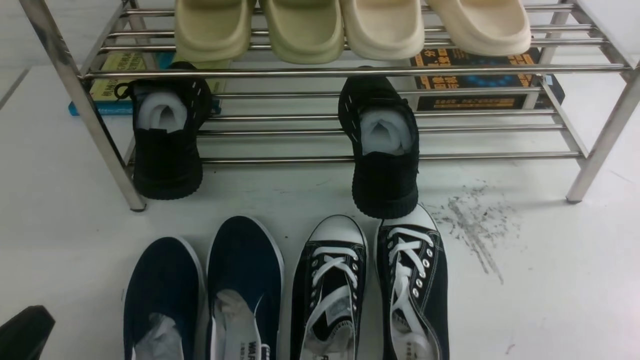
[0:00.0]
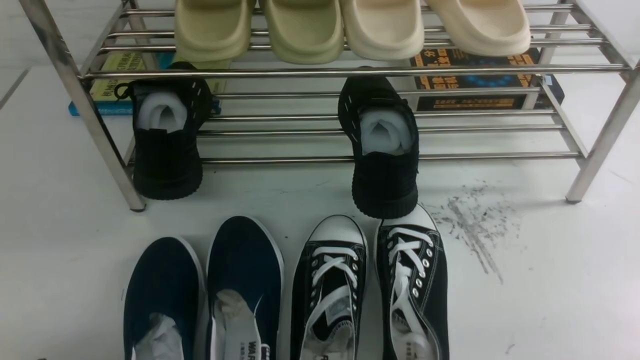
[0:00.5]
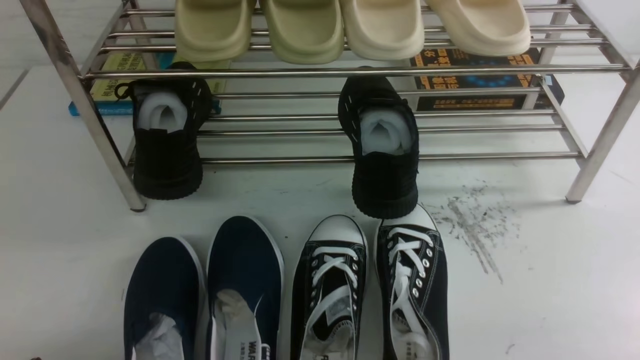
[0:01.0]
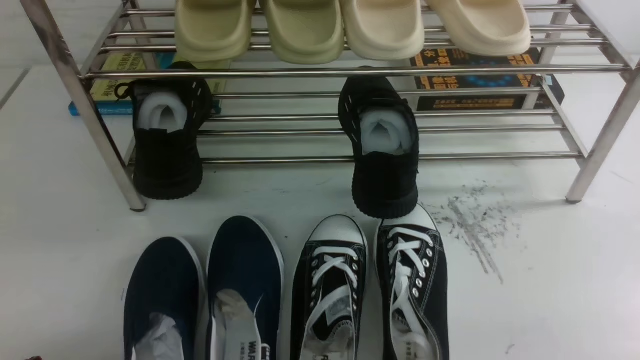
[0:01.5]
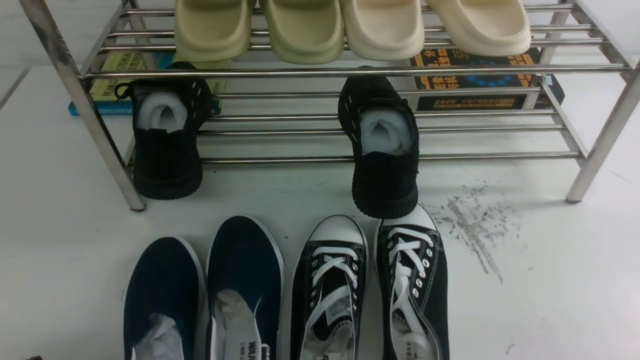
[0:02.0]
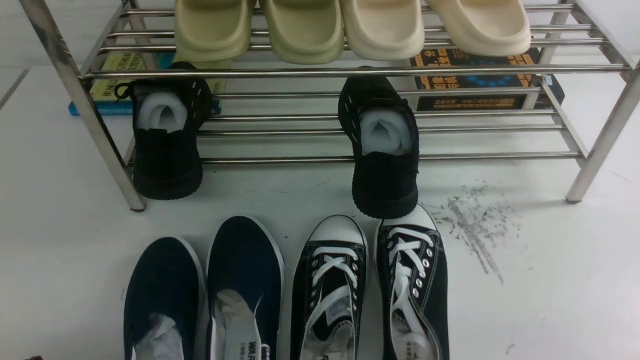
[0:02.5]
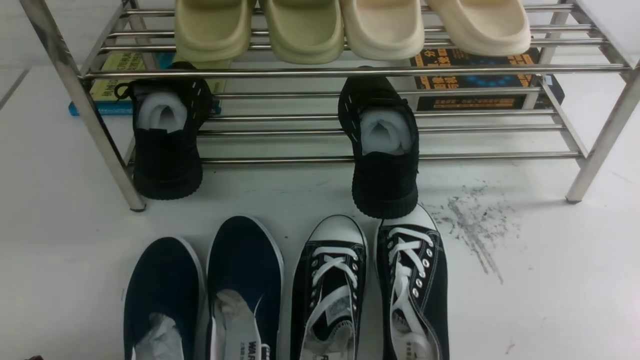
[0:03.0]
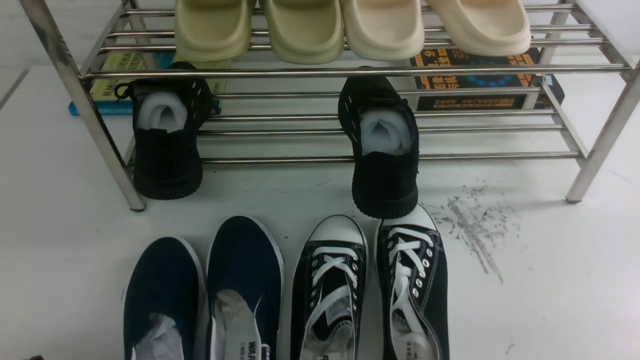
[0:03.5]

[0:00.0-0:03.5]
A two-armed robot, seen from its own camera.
0:00.0 to 0:02.0: The grippers stay close to where they were, moving slightly.
0:02.0 to 0:03.5: The two grippers keep their place.

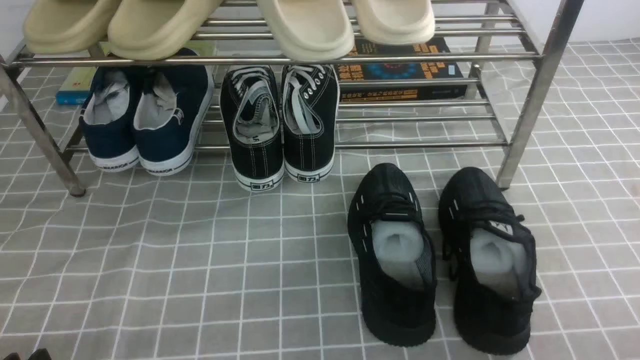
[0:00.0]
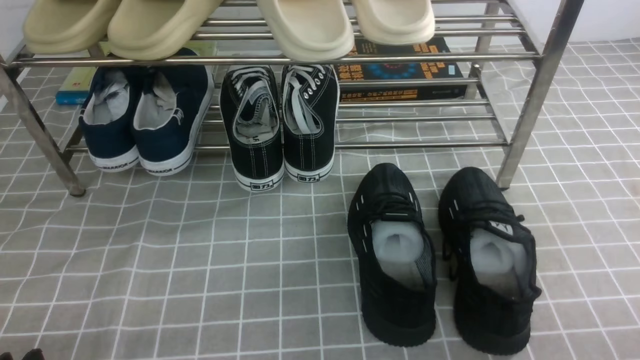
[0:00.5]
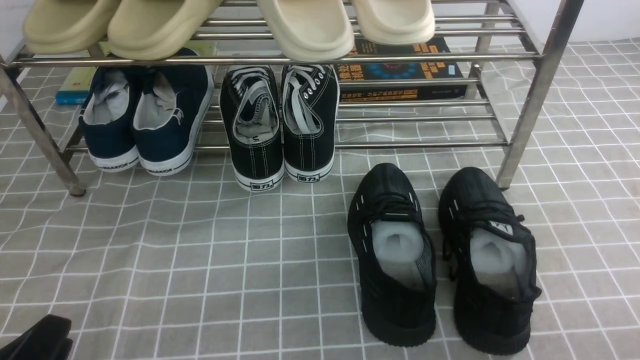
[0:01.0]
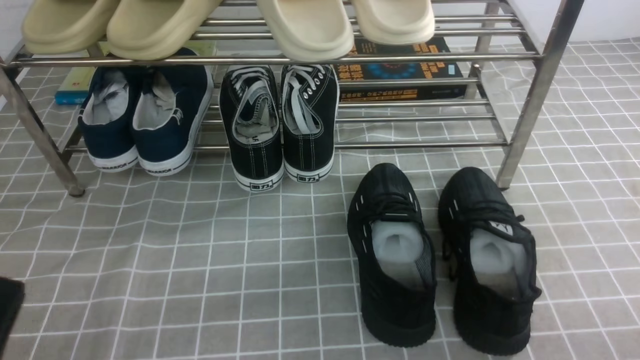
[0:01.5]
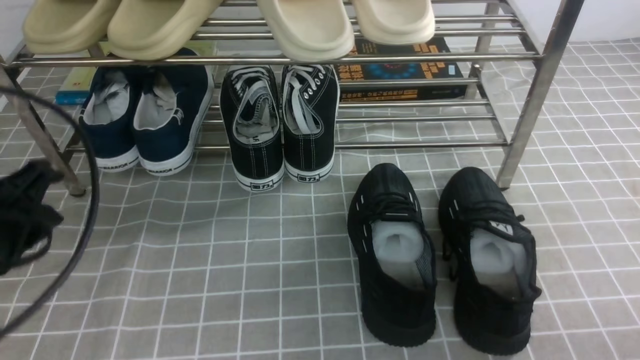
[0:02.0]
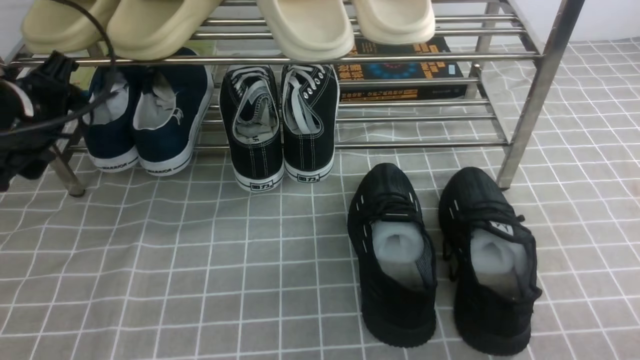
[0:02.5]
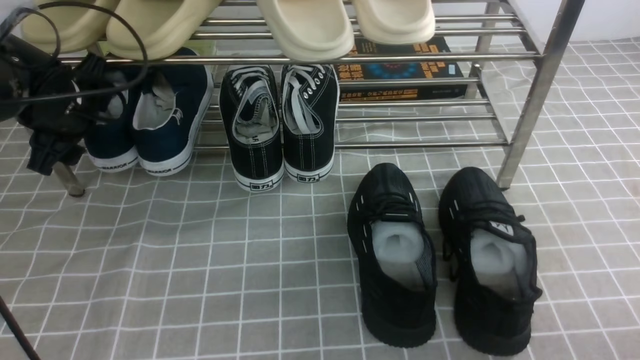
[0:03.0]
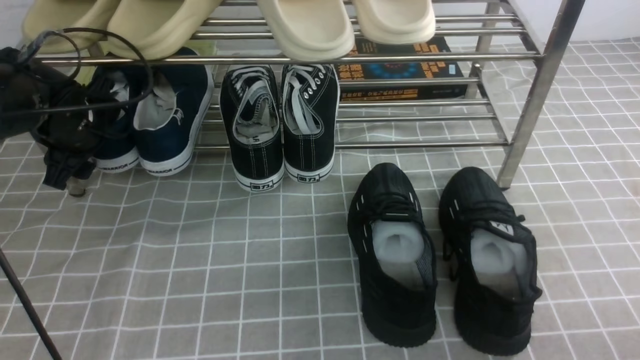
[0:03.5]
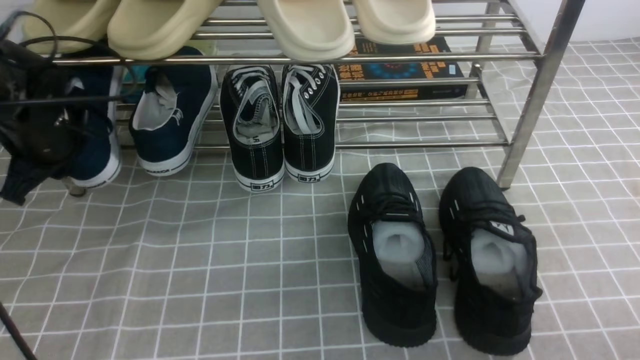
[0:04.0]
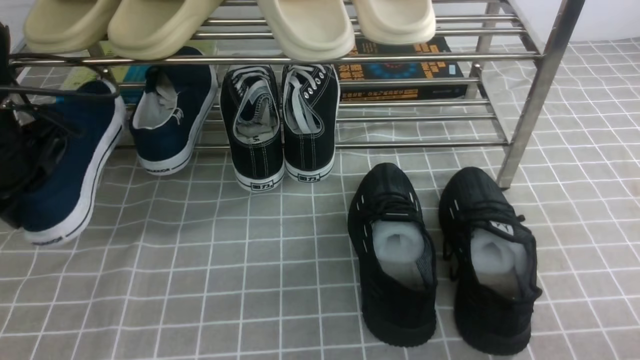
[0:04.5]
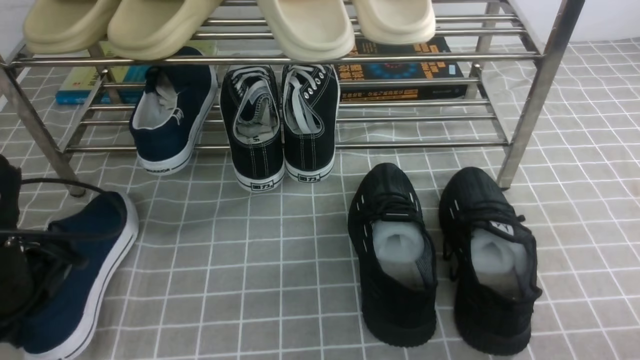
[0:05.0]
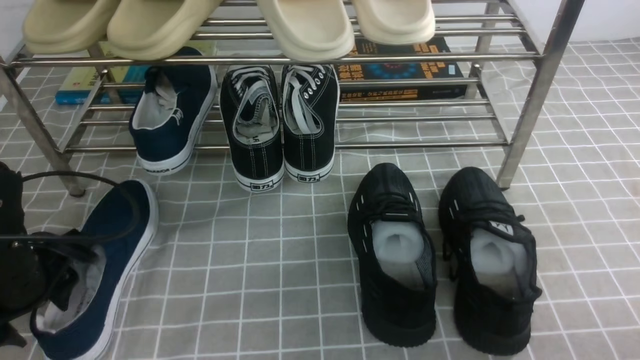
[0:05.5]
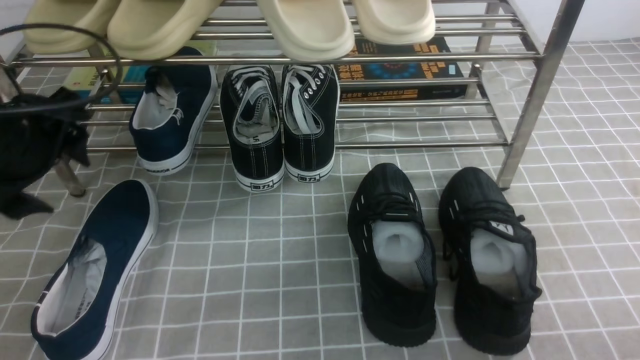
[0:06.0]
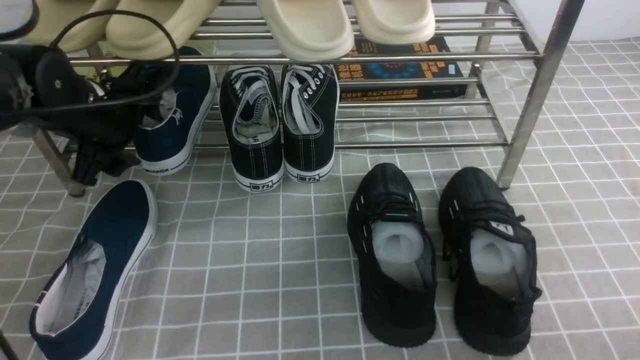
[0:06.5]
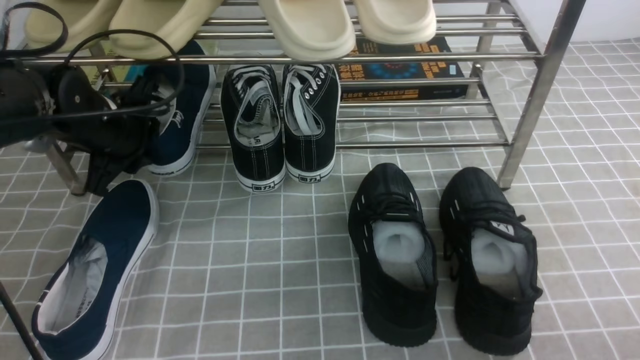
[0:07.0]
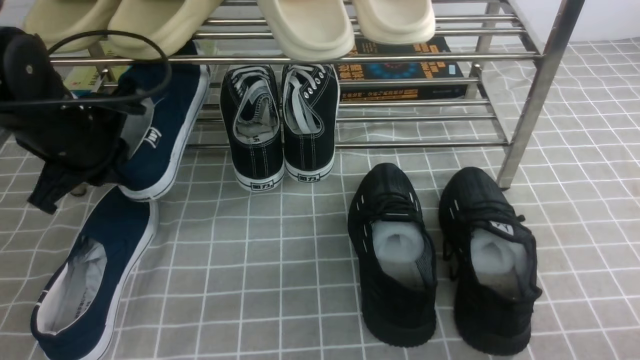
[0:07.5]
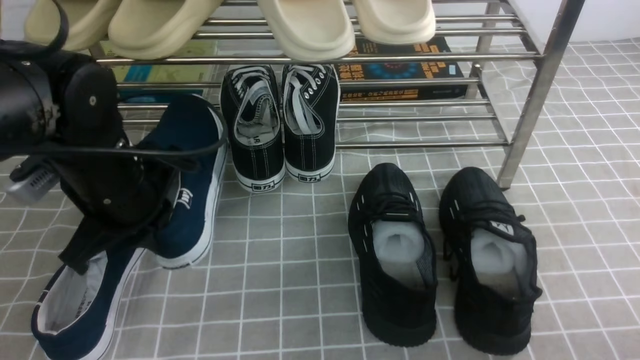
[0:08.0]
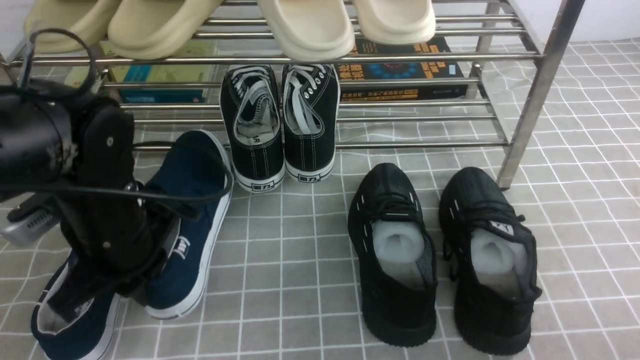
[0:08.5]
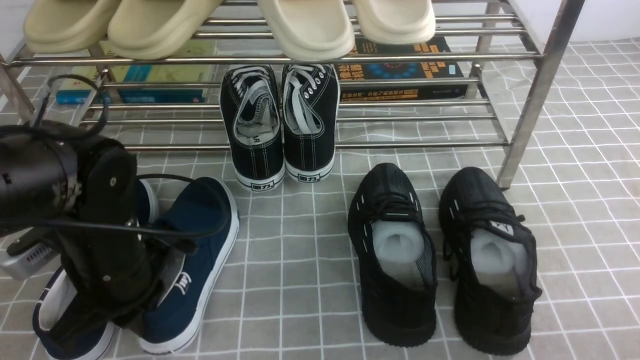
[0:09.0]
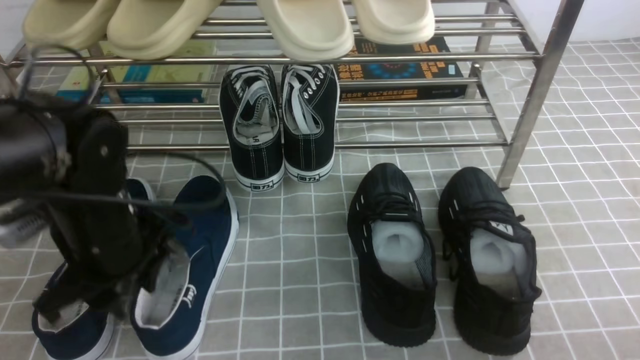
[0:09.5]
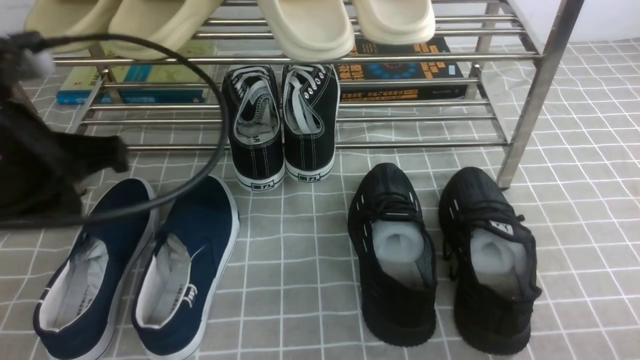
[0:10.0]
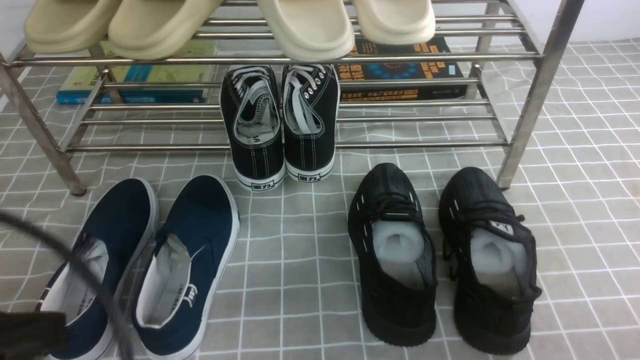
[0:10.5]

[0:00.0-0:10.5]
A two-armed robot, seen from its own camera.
Step, 0:00.0 to 0:03.5: use the left arm to clamp a shoe on the left side of the shoe rack.
Step, 0:04.0 to 0:05.5: Use your left arm to remove the clamped shoe from the shoe rack and put it down.
Step, 0:06.0 to 0:07.0: use the left arm to clamp a shoe on the left side of the shoe rack.
Step, 0:07.5 to 0:09.5: Use your left arm to remove the clamped shoe from the shoe rack and put it down.
0:00.0 to 0:02.0: The left gripper travels upward and forward by approximately 20 cm.
0:02.0 to 0:04.0: The left gripper heads forward, covering some 20 cm, and opens, then closes once more.
0:04.0 to 0:06.5: The left gripper reaches about 15 cm backward, then returns, and opens its fingers.
0:06.5 to 0:08.5: The left gripper goes about 10 cm backward, and closes up.
0:08.5 to 0:10.5: The left gripper is displaced backward and upward by some 20 cm, and opens and closes again.

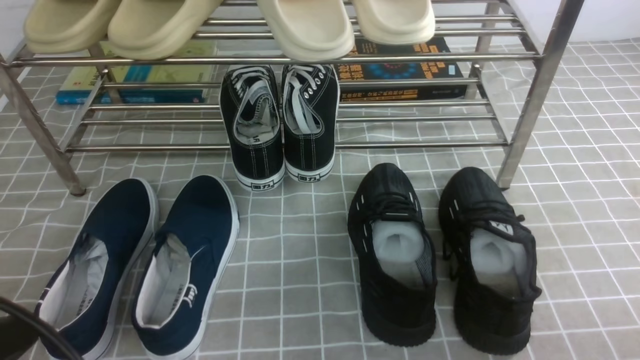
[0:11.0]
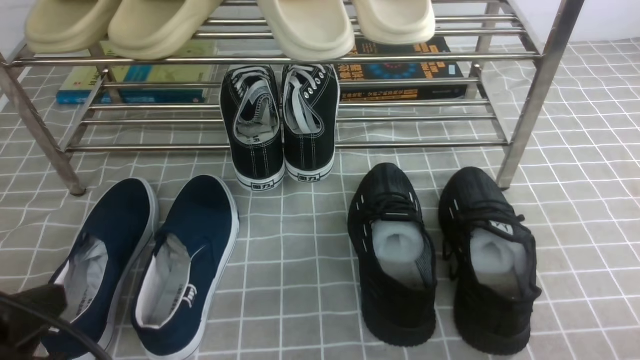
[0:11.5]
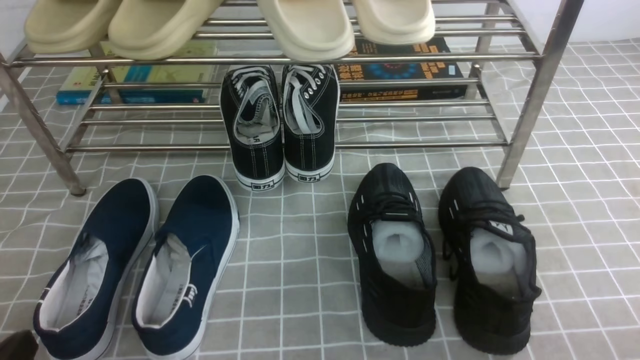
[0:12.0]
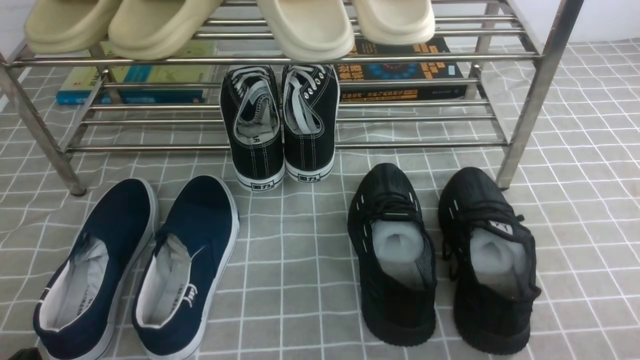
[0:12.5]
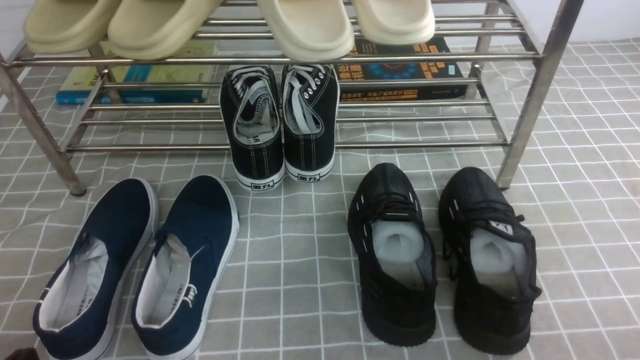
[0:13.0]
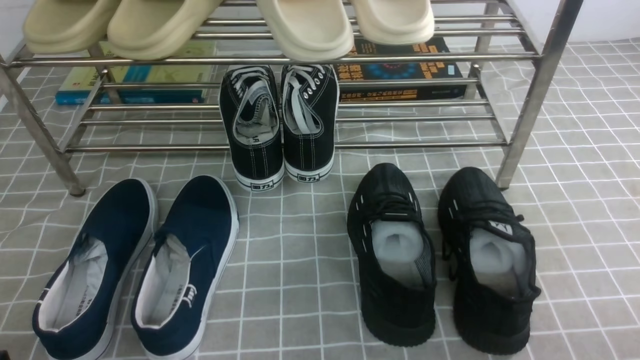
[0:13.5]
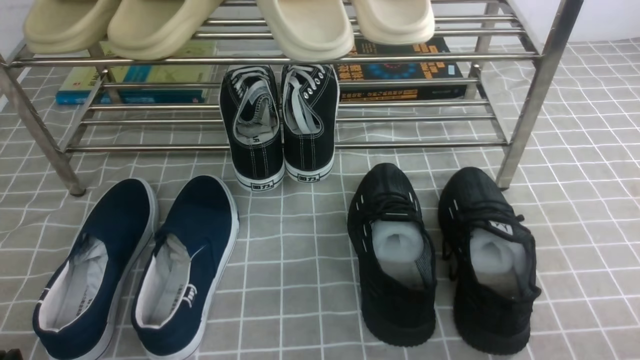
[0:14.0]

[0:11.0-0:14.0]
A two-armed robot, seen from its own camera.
0:11.0 to 0:12.5: The left gripper heads downward, covering roughly 15 cm.
